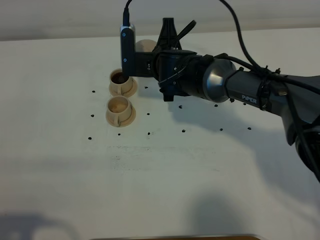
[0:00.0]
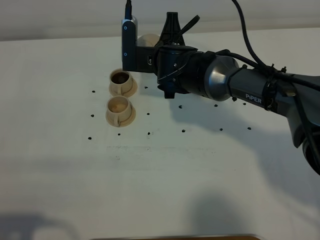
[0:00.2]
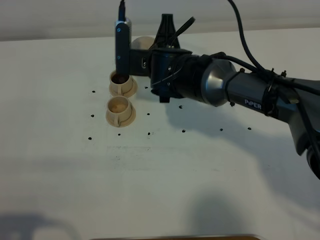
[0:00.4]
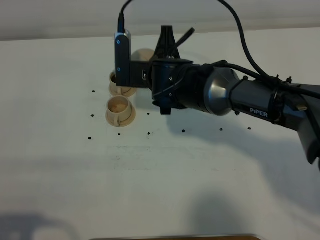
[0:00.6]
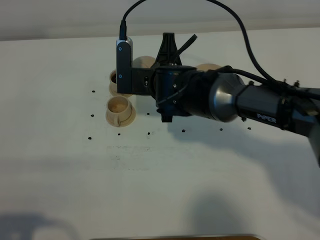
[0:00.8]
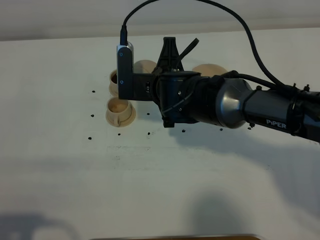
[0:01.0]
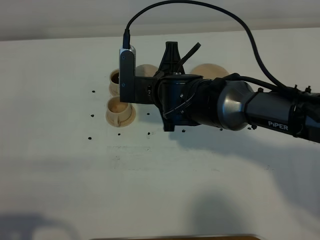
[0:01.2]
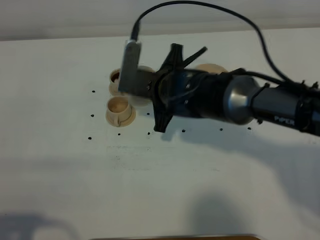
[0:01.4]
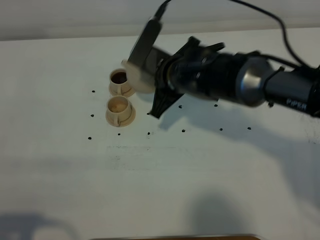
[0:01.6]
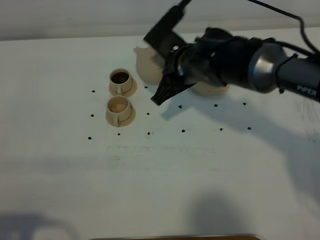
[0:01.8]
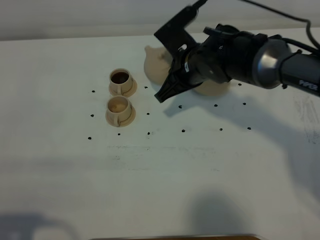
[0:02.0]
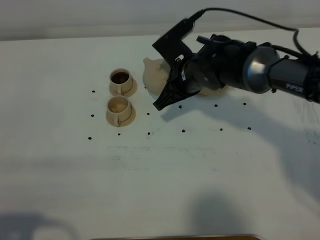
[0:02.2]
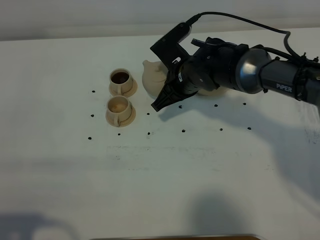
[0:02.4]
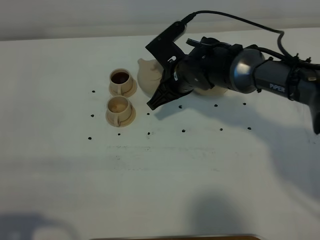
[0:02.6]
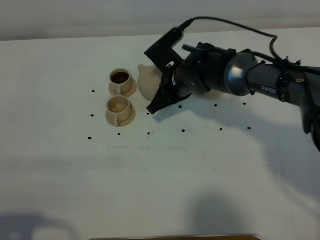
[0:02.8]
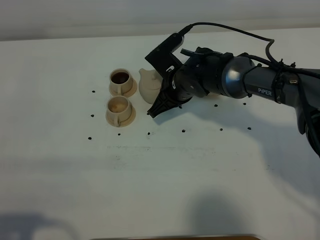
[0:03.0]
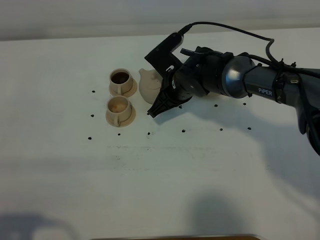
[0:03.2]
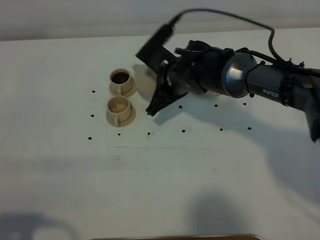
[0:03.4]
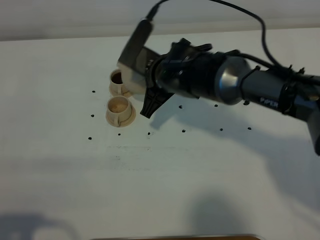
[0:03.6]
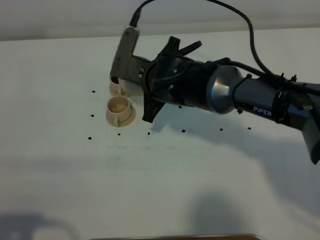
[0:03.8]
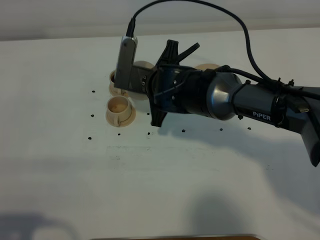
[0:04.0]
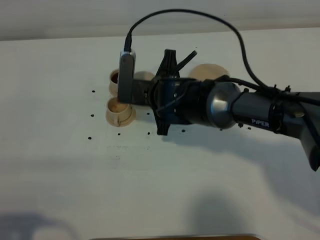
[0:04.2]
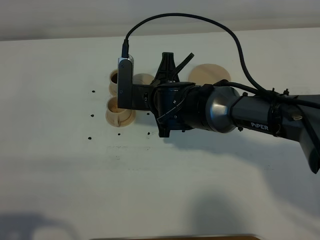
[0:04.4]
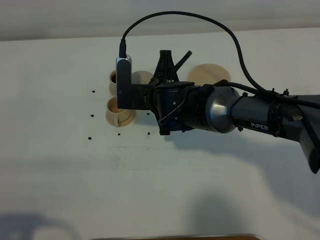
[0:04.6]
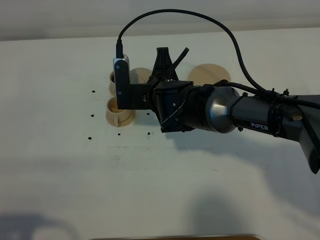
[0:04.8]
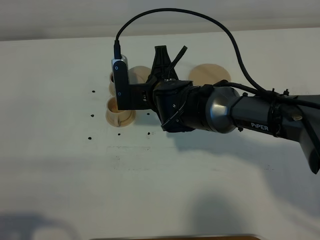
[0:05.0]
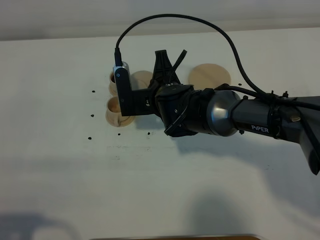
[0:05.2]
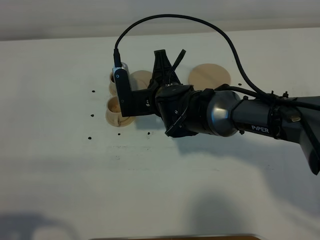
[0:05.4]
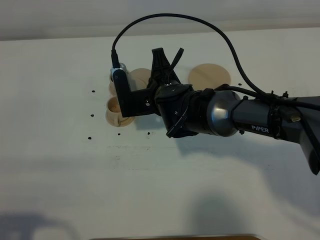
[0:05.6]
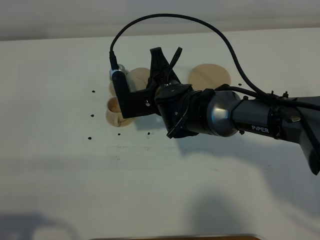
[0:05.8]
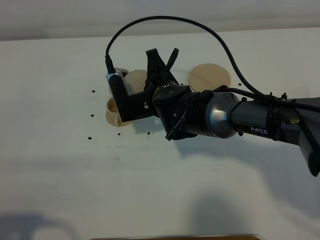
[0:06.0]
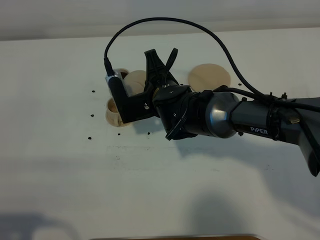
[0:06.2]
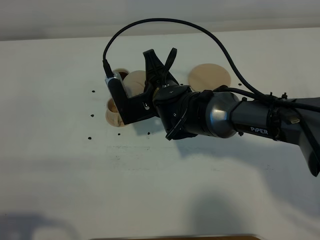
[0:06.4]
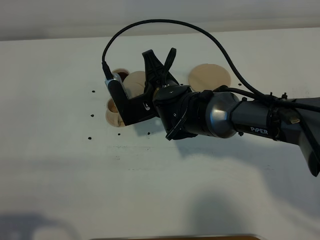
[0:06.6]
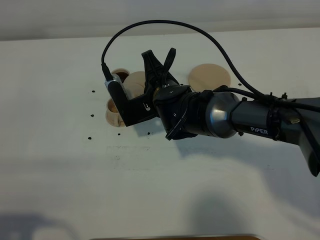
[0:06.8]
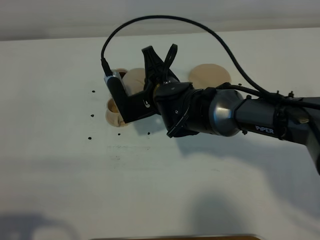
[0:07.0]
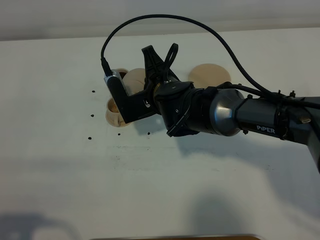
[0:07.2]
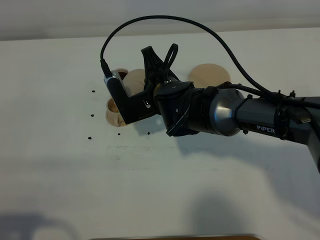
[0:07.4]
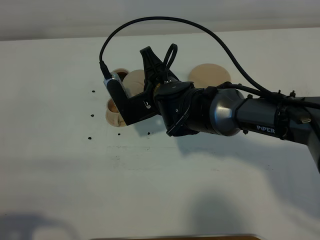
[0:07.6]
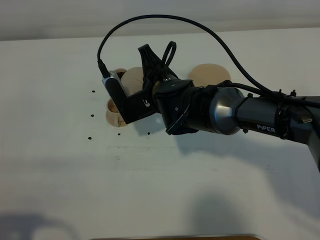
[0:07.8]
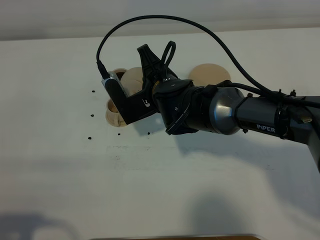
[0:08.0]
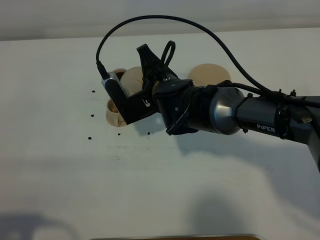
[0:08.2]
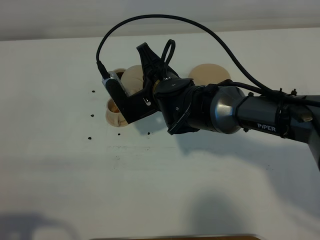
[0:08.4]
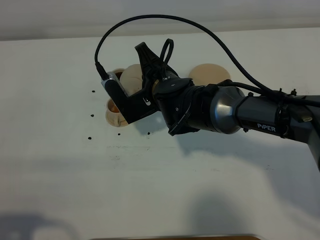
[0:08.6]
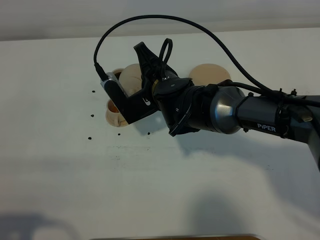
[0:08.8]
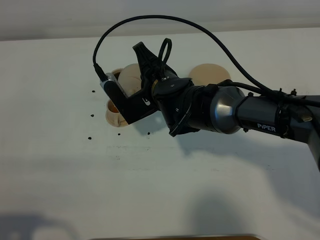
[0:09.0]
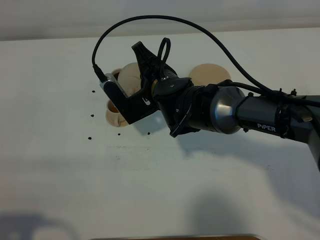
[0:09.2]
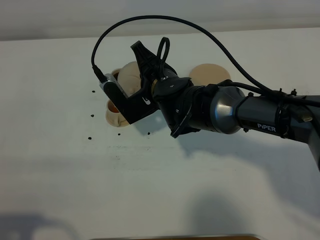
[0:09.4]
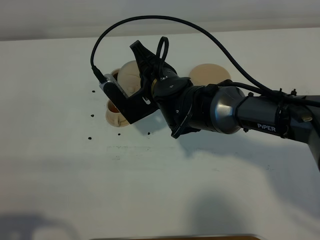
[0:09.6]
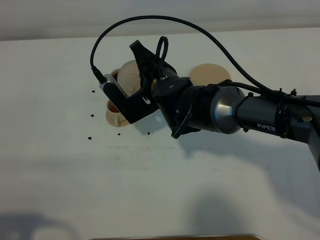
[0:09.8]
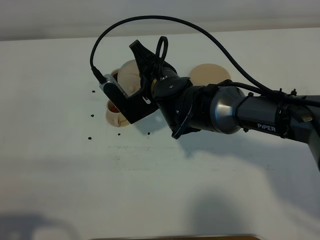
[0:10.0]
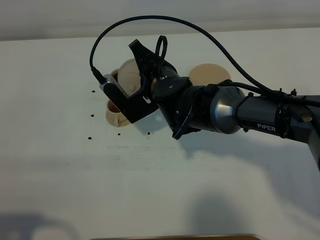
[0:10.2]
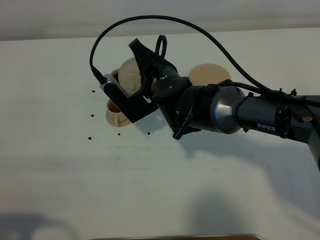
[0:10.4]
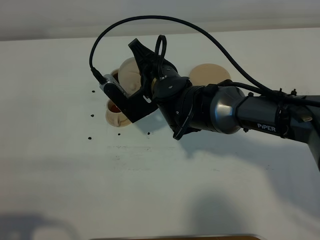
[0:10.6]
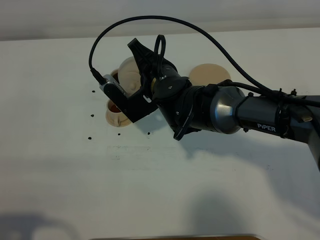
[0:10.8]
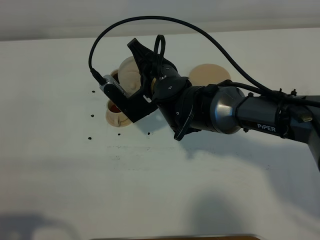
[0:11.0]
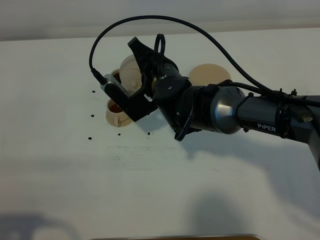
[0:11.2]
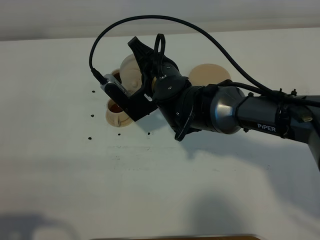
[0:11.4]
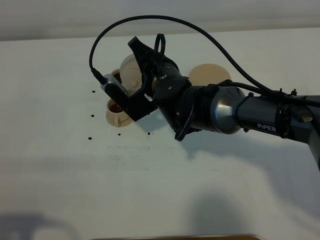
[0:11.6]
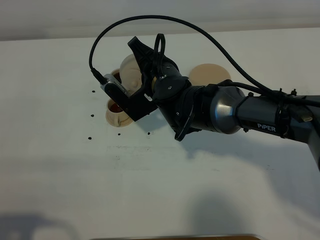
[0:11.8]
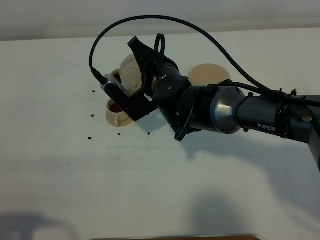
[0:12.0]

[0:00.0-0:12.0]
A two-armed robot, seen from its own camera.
Task of the whole recording: grasp the brown teapot and pour the tea into the two brown teacups one by one, put the brown teapot back in its original place.
0:00.0 to 0:01.6: The right gripper goes approximately 5 cm backward.
0:01.6 to 0:03.0: The right gripper is displaced downward by about 5 cm.
0:03.0 to 0:04.4: The right gripper travels backward by approximately 5 cm.
0:06.0 to 0:09.0: There are only small adjustments of the grippers.
0:09.0 to 0:10.4: The grippers make only small movements.
0:10.4 to 0:12.0: Neither gripper changes place.

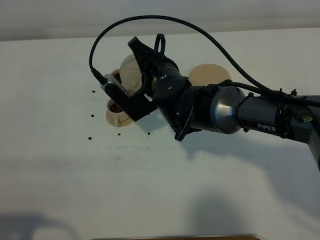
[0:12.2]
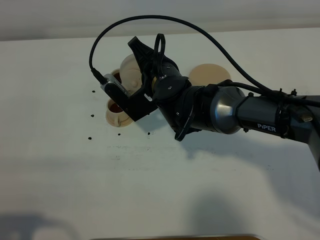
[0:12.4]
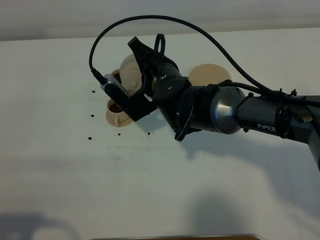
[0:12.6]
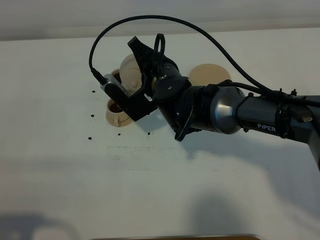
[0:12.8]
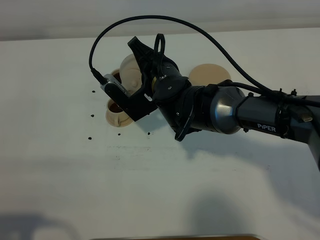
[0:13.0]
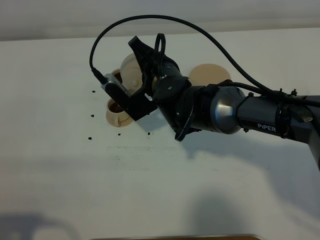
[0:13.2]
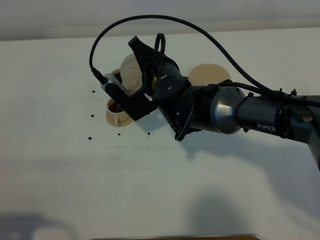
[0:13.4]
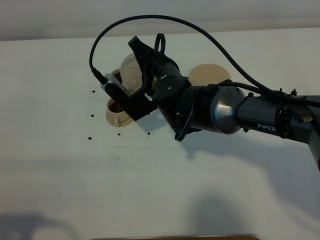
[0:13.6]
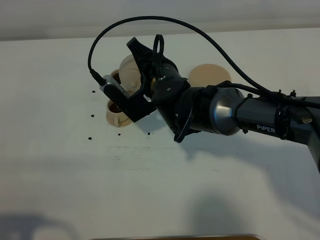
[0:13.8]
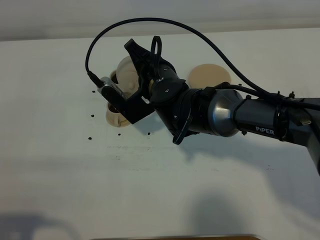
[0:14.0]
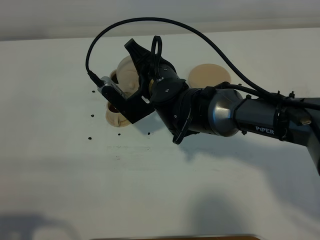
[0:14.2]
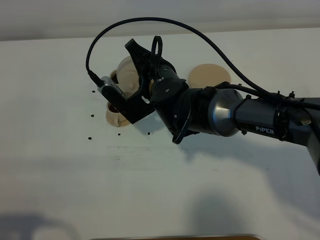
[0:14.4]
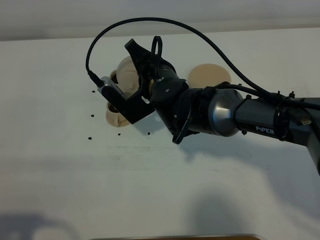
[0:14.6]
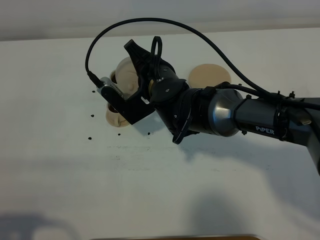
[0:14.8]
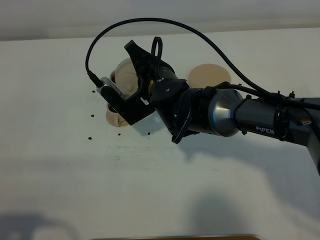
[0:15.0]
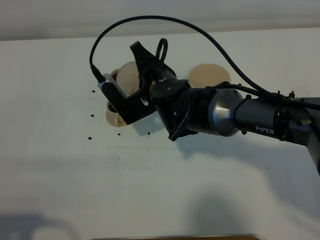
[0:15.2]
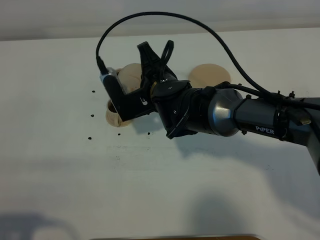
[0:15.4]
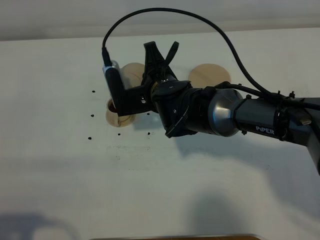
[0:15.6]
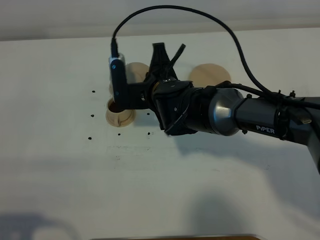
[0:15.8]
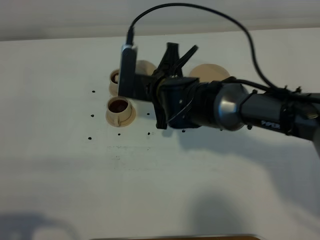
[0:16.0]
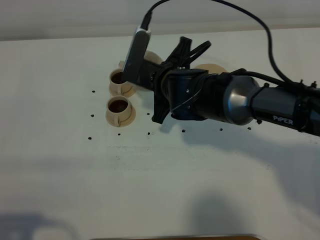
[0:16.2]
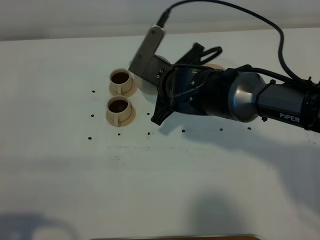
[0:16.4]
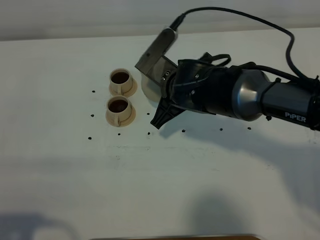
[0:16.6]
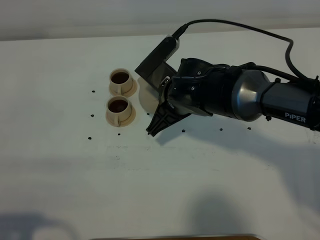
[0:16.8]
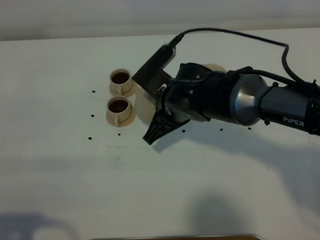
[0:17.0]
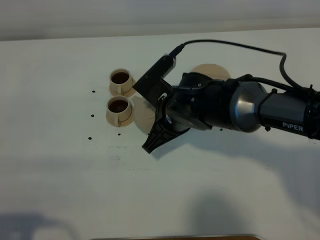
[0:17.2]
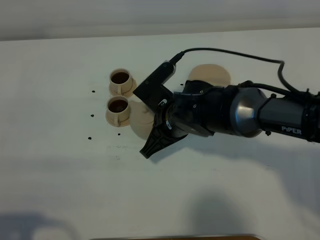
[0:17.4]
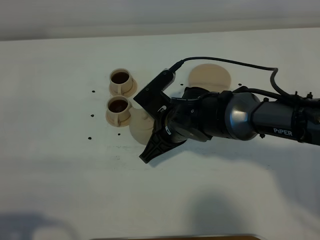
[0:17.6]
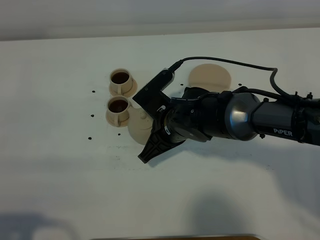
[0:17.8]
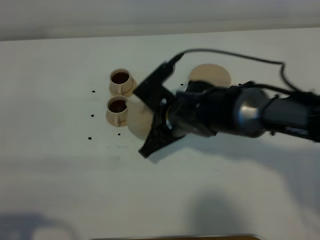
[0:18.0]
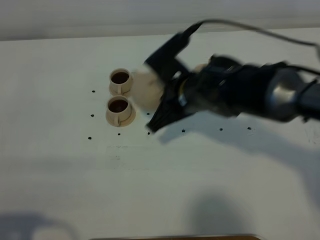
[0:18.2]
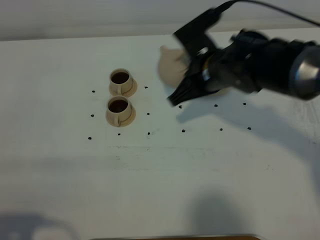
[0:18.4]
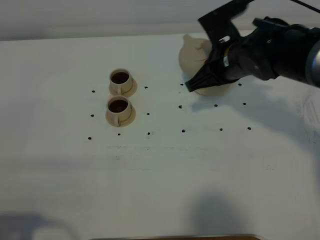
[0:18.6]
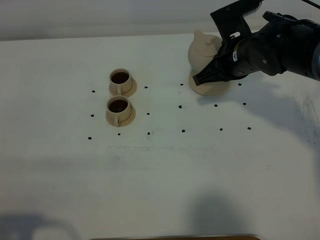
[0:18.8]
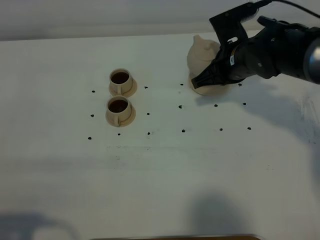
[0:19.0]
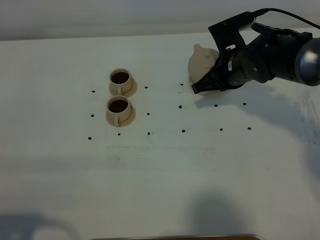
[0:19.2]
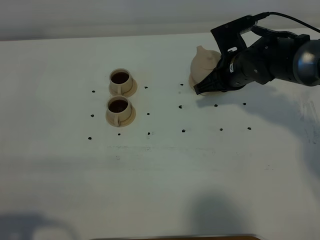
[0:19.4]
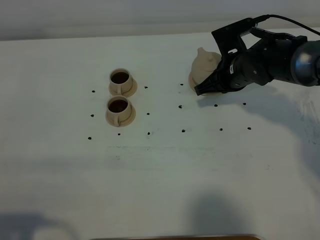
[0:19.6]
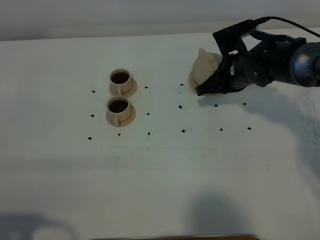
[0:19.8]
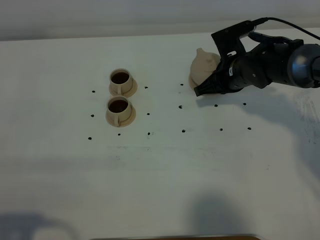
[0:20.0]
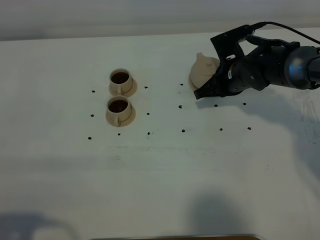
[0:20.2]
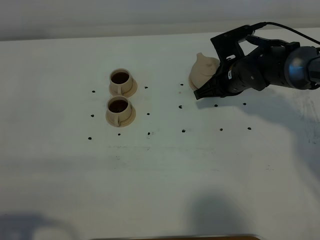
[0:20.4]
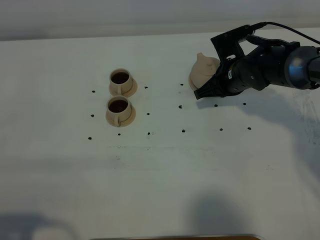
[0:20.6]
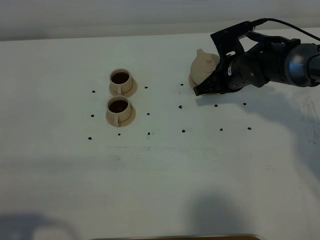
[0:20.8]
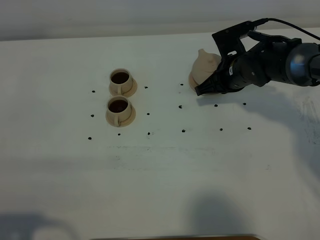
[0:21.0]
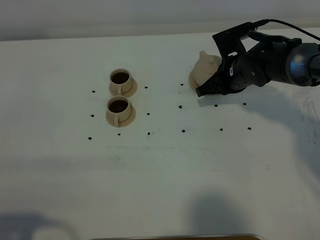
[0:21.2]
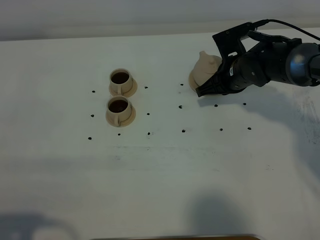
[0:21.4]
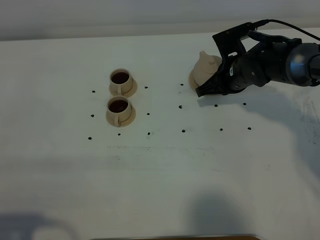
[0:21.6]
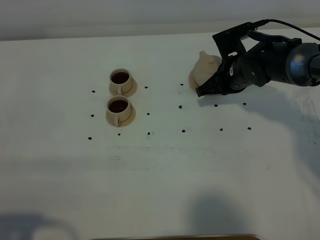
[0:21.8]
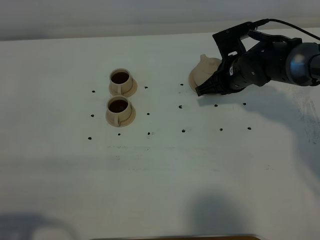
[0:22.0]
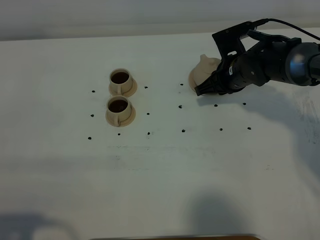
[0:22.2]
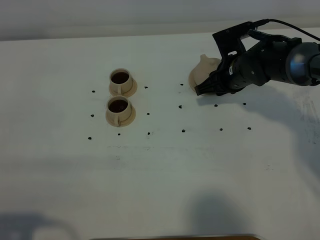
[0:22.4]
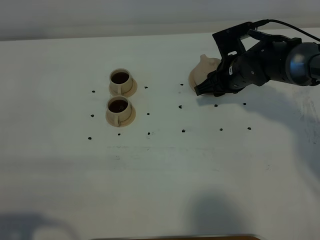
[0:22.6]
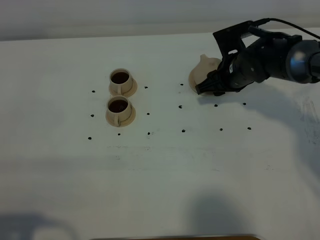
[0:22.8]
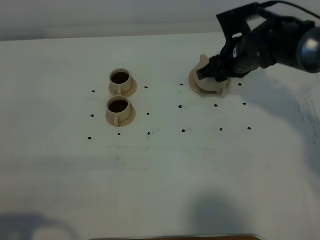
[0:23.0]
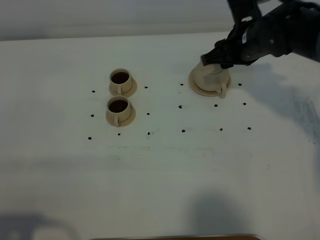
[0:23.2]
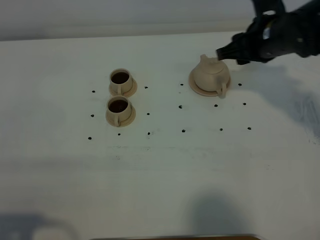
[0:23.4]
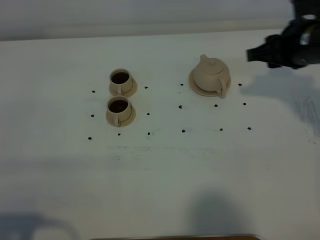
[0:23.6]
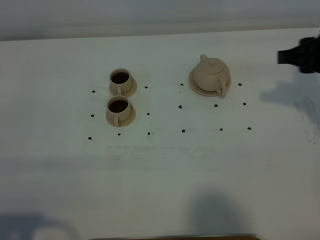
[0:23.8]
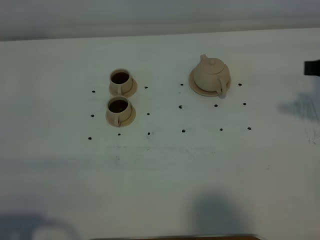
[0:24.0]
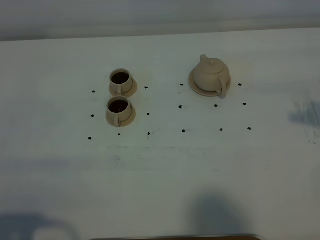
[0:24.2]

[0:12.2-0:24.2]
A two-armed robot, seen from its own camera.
Task of the whole recording: grasp the brown teapot and pour the tea into the two brown teacups one by one, put the brown teapot back in its original place.
Step, 0:12.2 to 0:15.8: Pour tea into the teacup with the right gripper.
0:12.2 to 0:13.8: Neither gripper changes place.
0:13.8 to 0:15.2: There are only small adjustments of the grippers.
0:16.6 to 0:18.2: The grippers stay close to where they were, moving slightly.
0:18.2 to 0:19.8: The right gripper travels to the right, forward and downward by approximately 15 cm.
0:19.8 to 0:21.2: The two grippers keep their place.
0:21.2 to 0:22.6: The right gripper opens up.
0:22.6 to 0:24.2: The right gripper heads backward, upward and to the right, covering about 30 cm, and closes up.
